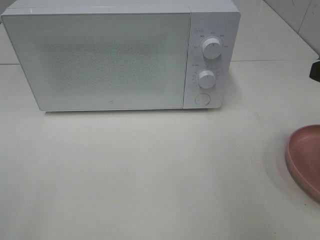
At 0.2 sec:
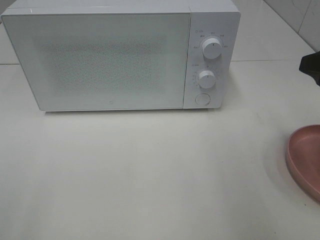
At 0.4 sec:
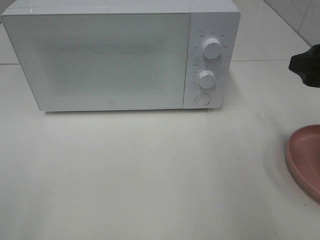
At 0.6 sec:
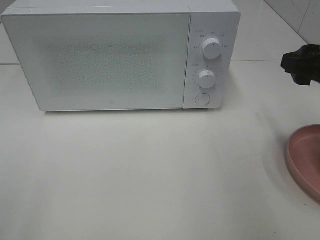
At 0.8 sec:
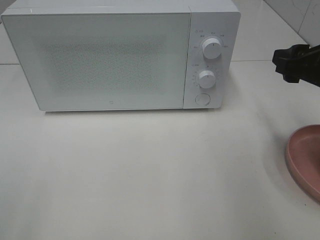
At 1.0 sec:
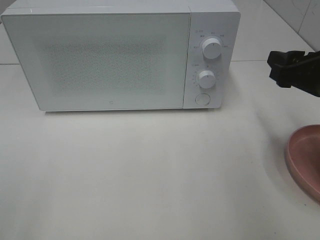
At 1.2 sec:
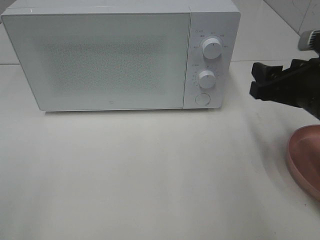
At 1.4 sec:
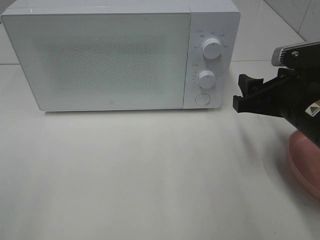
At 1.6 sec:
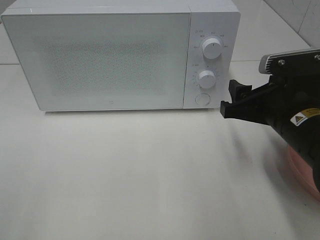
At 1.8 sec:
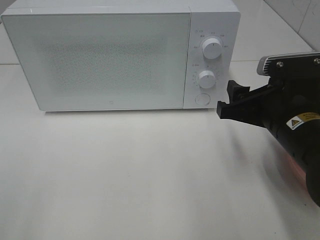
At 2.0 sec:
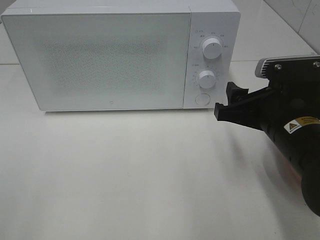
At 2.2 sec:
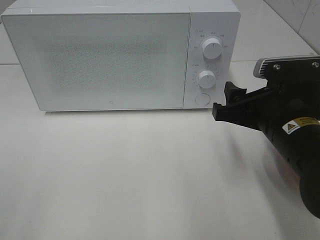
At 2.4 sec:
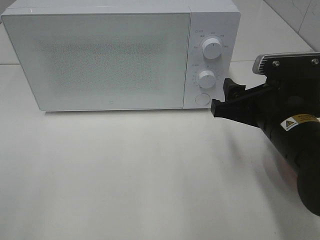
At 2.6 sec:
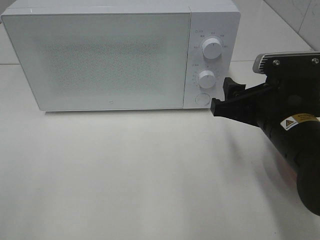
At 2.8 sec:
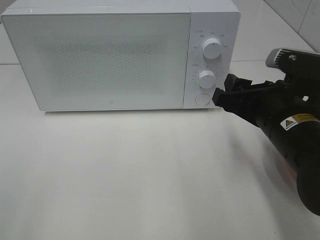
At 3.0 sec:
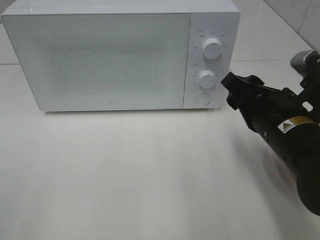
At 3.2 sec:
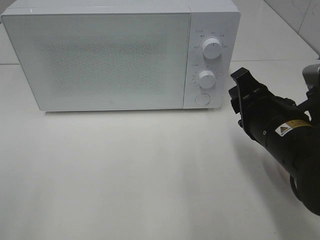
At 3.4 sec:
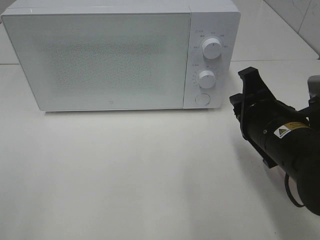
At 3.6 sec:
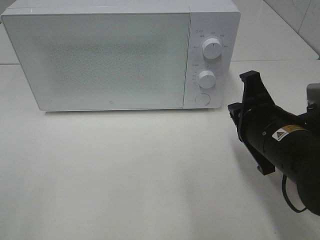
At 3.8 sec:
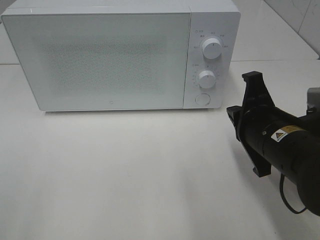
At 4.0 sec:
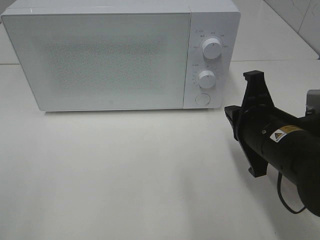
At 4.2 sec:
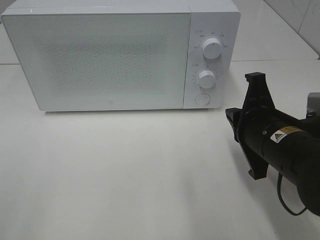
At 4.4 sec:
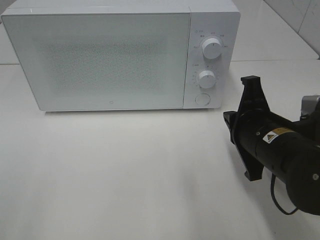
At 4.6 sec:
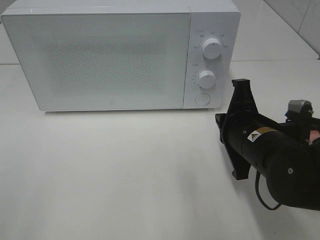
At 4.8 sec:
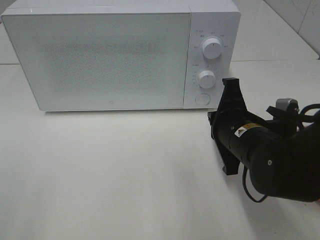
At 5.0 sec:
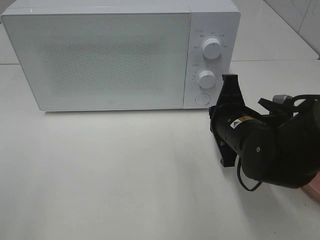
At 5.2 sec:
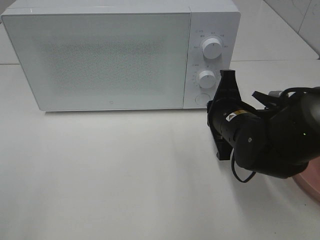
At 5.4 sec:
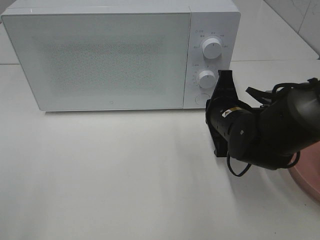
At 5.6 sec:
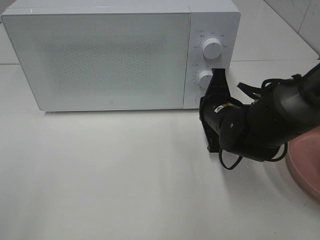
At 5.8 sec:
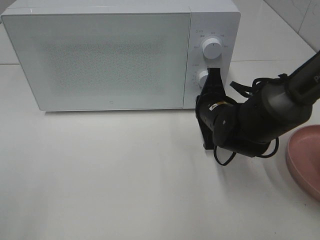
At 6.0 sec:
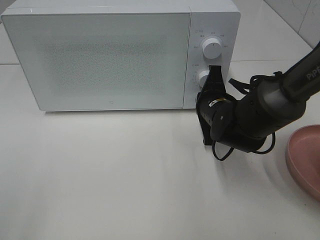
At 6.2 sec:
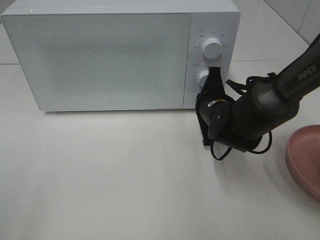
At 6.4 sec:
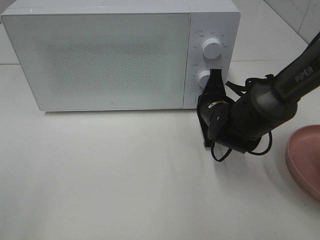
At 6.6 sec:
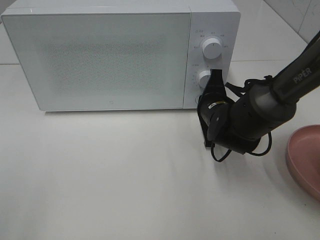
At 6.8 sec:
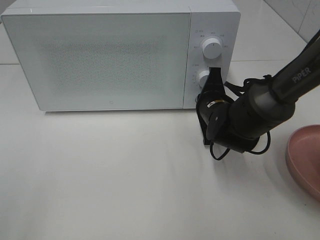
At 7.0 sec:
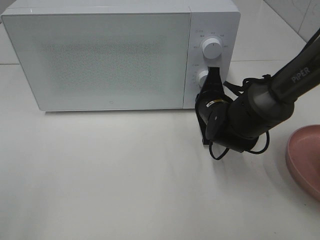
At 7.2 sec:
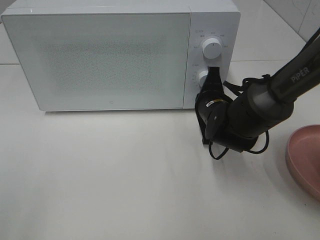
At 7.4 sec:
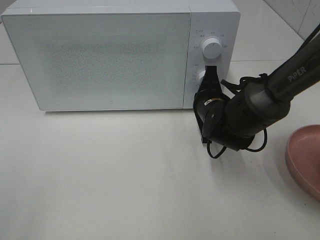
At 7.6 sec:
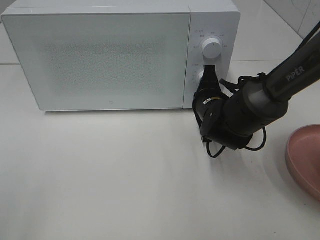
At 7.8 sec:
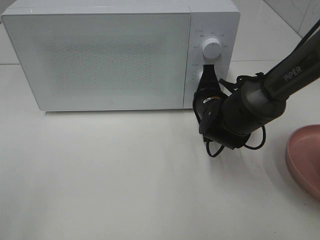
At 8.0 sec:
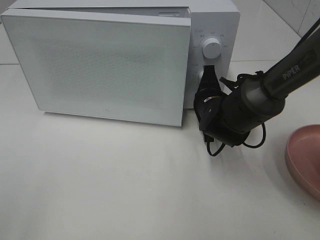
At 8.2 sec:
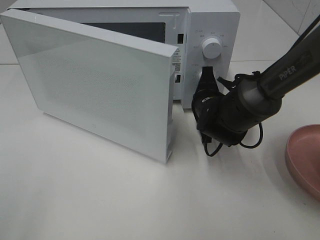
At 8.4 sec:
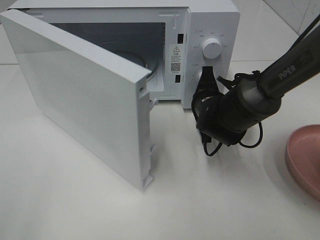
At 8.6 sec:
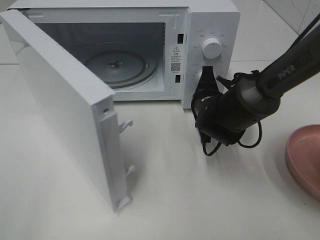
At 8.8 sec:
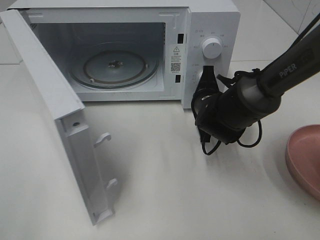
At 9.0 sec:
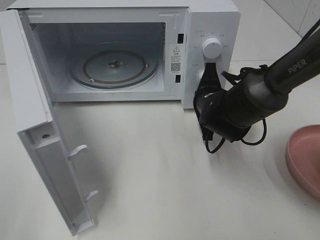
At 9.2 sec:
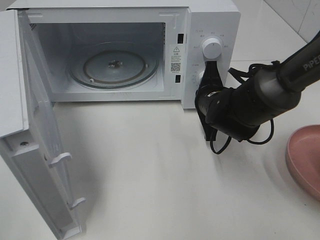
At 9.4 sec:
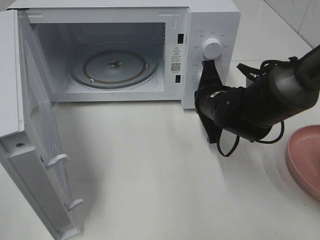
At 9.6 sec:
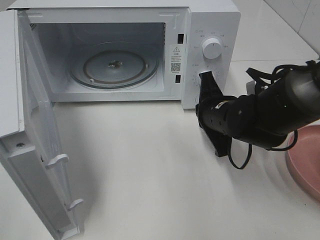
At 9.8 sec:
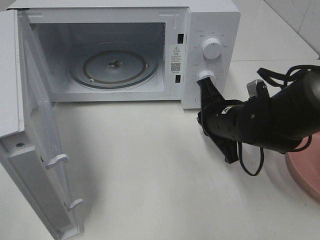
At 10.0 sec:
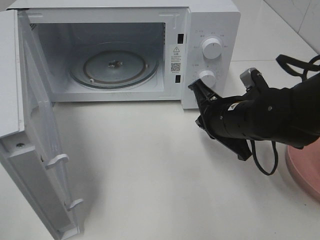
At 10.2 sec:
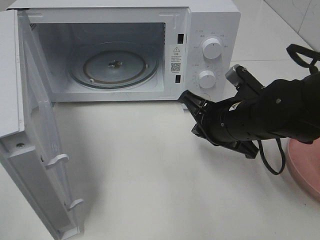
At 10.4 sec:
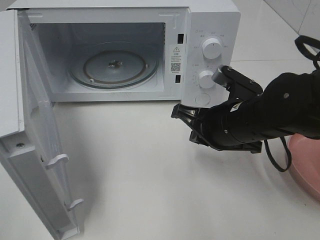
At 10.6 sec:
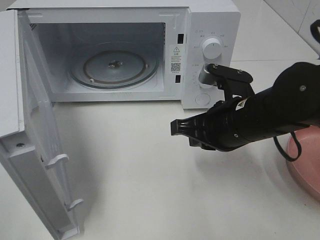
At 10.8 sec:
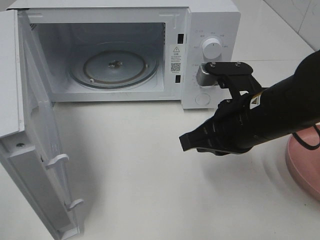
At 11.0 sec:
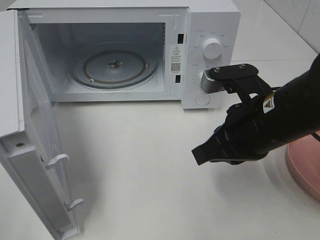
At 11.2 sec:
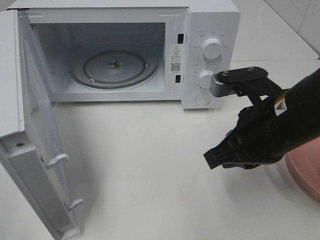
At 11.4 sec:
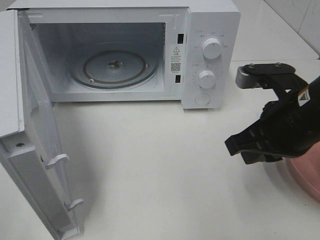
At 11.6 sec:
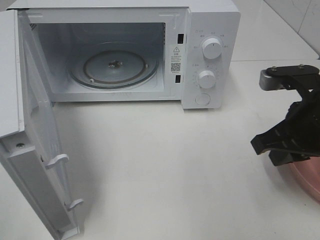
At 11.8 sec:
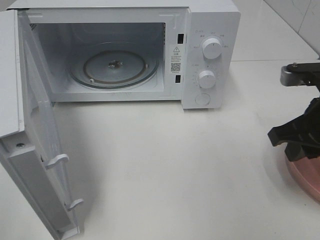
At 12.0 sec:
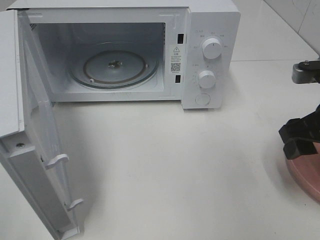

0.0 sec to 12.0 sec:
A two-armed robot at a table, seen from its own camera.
Task of the whole recording: Heat the burger.
Step, 0.0 sec to 9.2 sec: Right hand: press the switch.
0.0 sec to 1.6 sec: The right gripper goes approximately 15 cm downward and to the left.
3.0 sec to 4.4 sec: The right gripper closes.
4.4 sec to 6.0 sec: The right gripper is displaced forward and downward by about 15 cm.
6.0 sec to 7.6 sec: There are only small adjustments of the grippers.
9.0 sec to 10.4 sec: The right gripper moves backward and upward, about 10 cm.
10.4 sec to 12.0 sec: The right gripper is displaced to the right and upward by some 15 cm, and opens up.

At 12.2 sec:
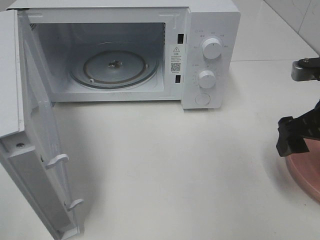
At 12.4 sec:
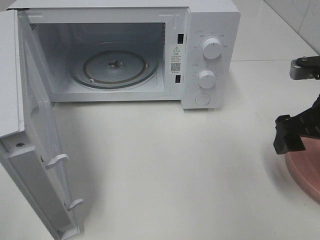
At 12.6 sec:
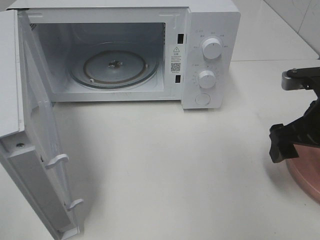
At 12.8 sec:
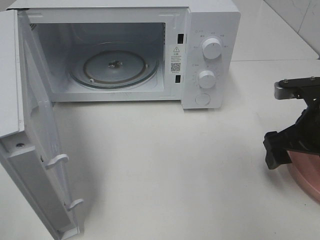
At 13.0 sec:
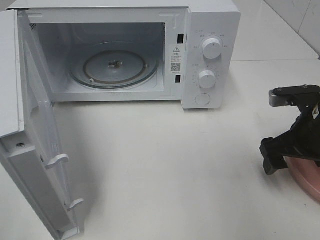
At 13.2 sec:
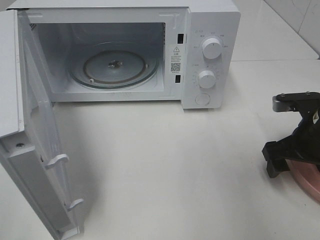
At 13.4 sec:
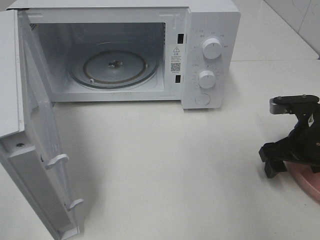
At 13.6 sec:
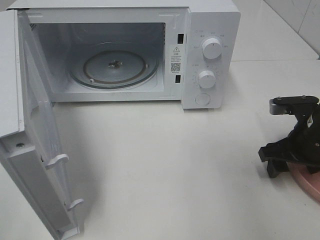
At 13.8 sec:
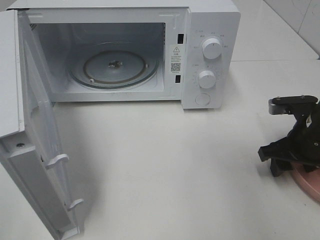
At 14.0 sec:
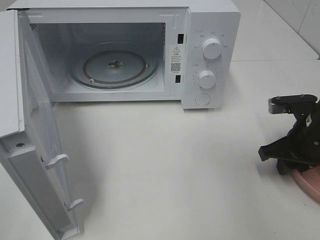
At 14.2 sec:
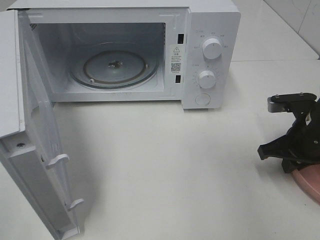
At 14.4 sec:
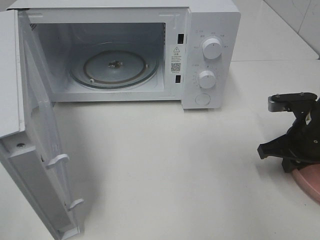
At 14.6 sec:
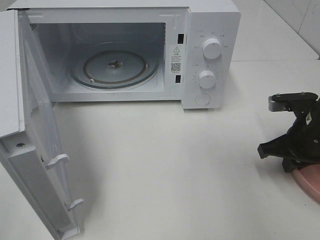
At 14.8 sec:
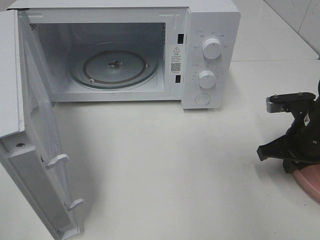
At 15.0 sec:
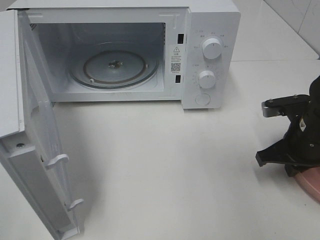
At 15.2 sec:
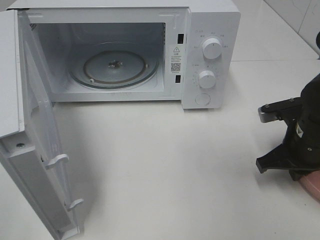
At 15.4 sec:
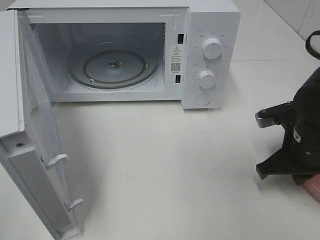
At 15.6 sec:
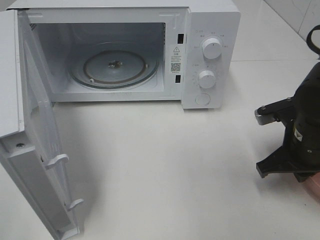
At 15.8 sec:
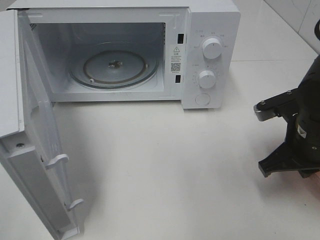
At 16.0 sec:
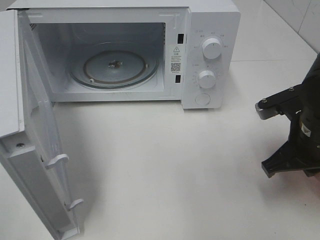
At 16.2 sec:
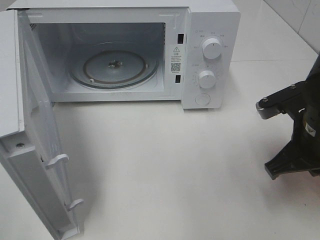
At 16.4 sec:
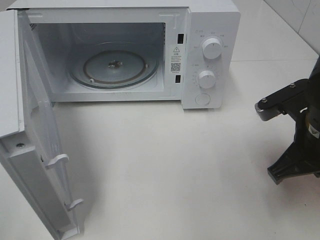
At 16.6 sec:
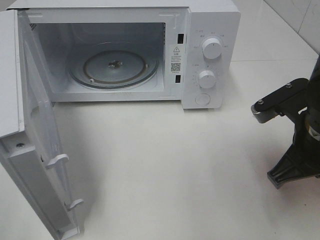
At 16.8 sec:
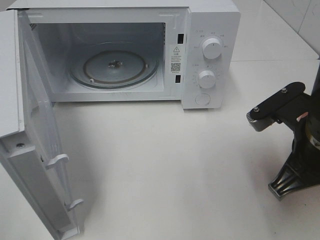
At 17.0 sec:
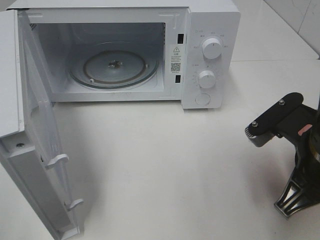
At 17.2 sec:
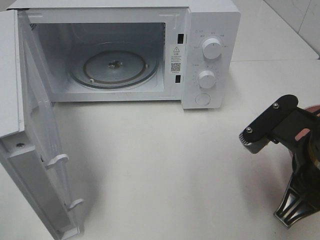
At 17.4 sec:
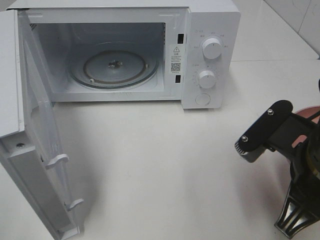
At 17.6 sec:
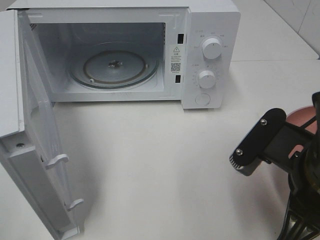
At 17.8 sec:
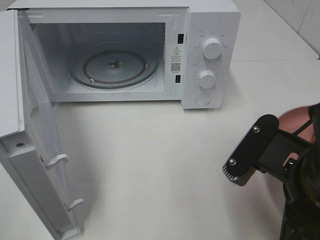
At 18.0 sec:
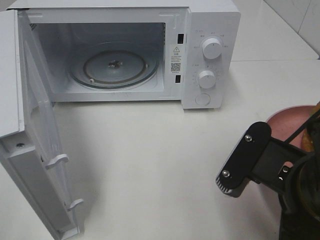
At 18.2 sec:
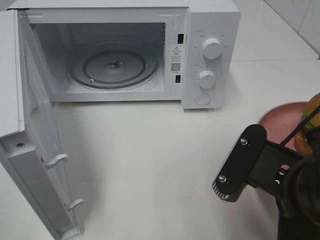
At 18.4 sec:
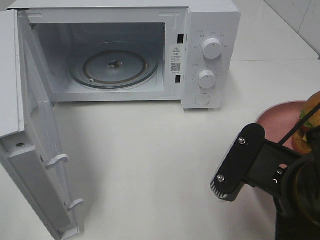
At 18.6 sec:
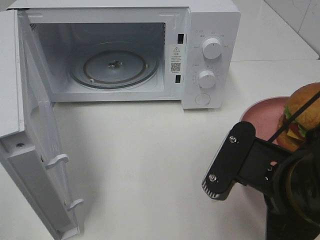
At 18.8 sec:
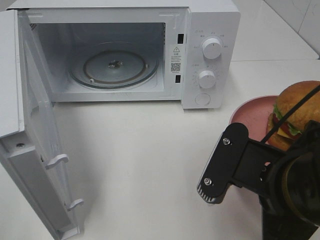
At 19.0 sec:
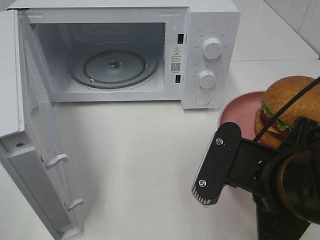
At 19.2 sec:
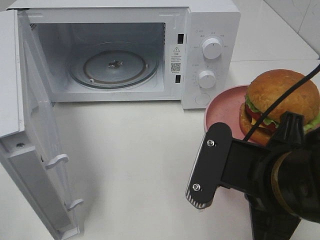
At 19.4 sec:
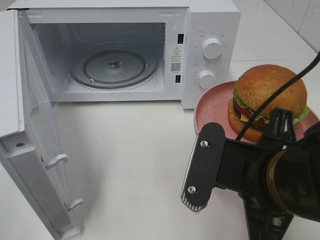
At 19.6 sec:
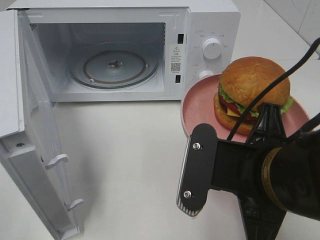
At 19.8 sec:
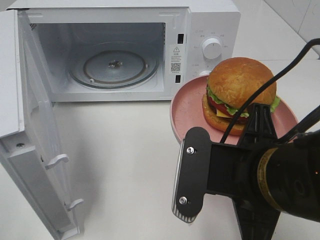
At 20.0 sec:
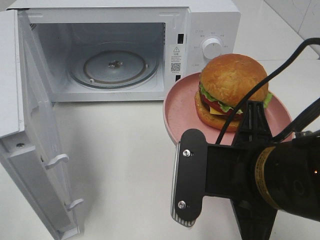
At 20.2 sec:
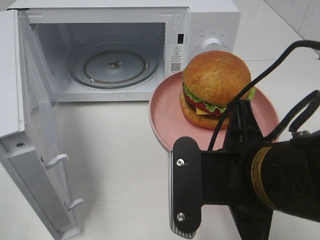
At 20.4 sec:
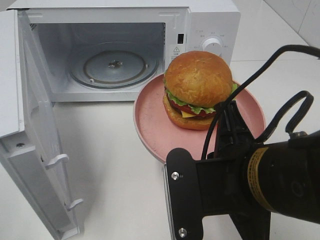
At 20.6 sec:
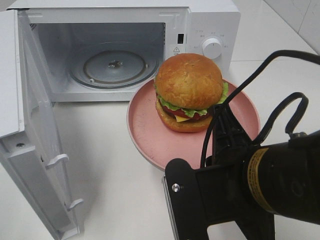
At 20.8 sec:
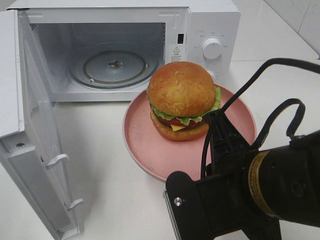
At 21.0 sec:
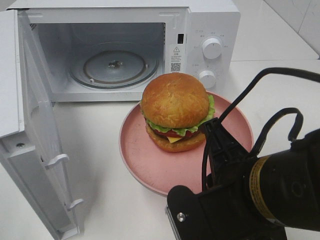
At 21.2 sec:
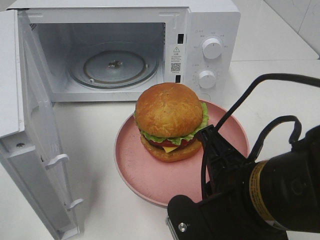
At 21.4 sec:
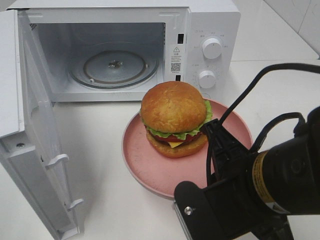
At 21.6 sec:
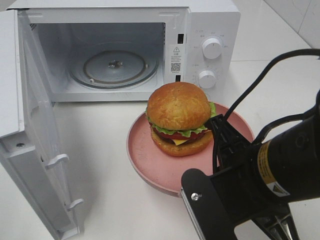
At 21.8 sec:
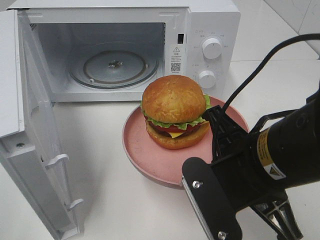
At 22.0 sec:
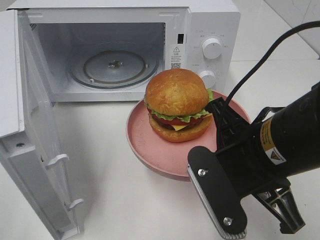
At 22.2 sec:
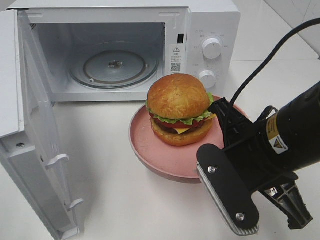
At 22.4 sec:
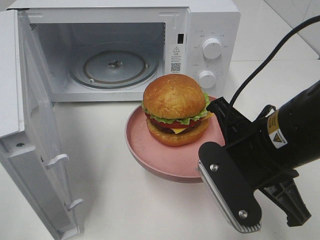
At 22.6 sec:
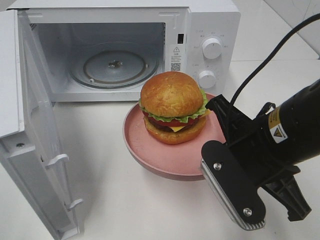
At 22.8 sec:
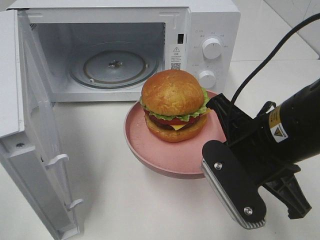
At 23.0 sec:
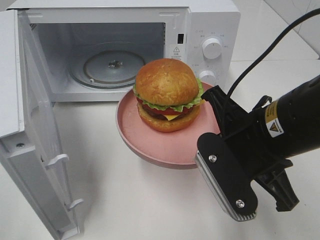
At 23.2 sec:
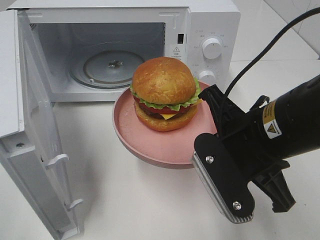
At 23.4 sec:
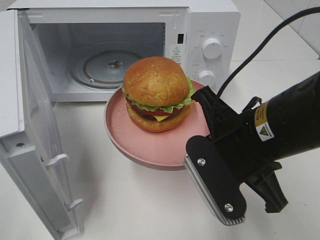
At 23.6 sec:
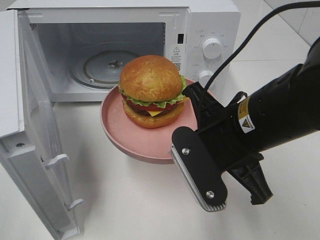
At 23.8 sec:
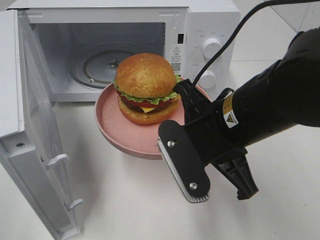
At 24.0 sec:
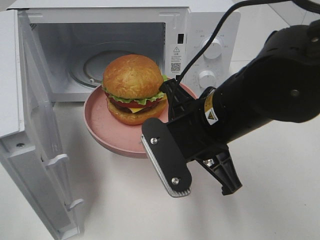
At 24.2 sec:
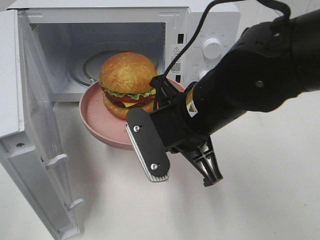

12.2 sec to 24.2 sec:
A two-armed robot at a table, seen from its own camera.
Task of the whole recording: Heat the burger.
12.2 sec to 13.8 sec: The right gripper goes about 10 cm downward.
13.8 sec to 15.2 sec: The right gripper closes up.
15.2 sec to 16.6 sec: The right gripper heads upward and backward, covering some 10 cm.
16.6 sec to 18.2 sec: The right gripper goes approximately 10 cm backward and to the left.
21.2 sec to 22.6 sec: The right gripper shifts approximately 5 cm forward.
22.6 sec to 24.2 sec: The right gripper heads to the left, covering roughly 10 cm.
